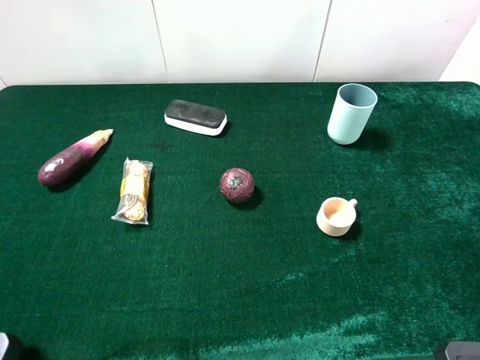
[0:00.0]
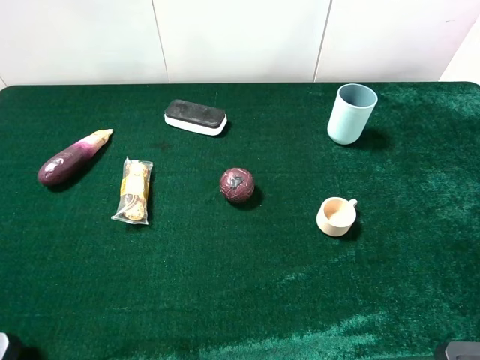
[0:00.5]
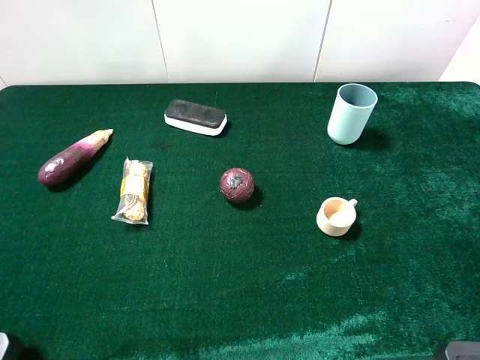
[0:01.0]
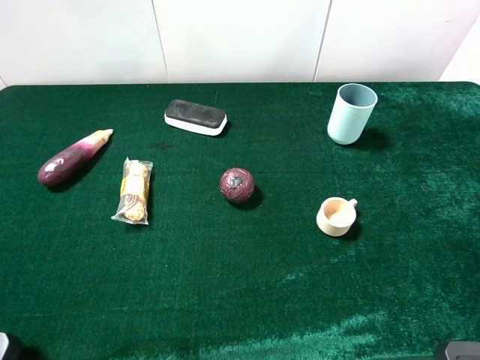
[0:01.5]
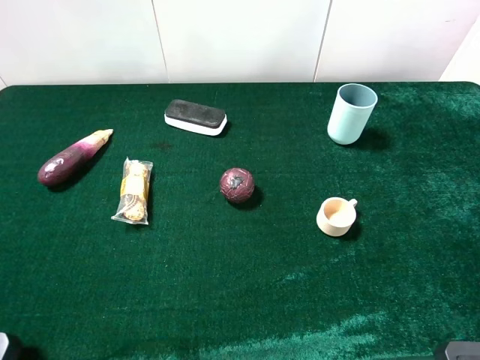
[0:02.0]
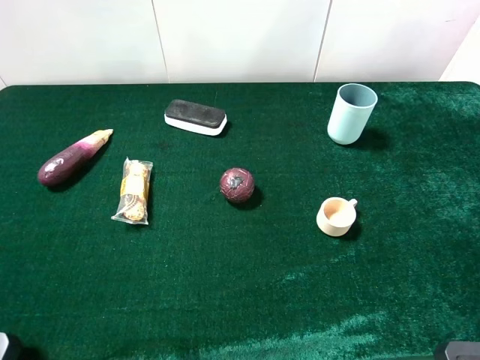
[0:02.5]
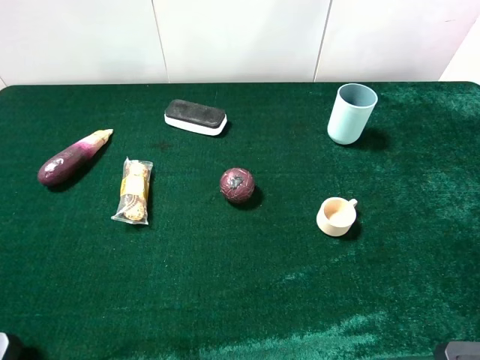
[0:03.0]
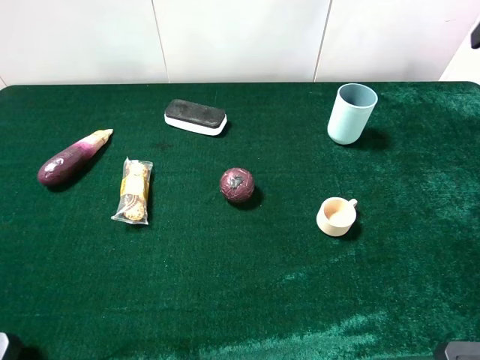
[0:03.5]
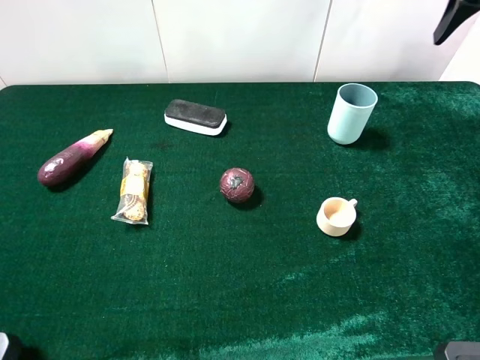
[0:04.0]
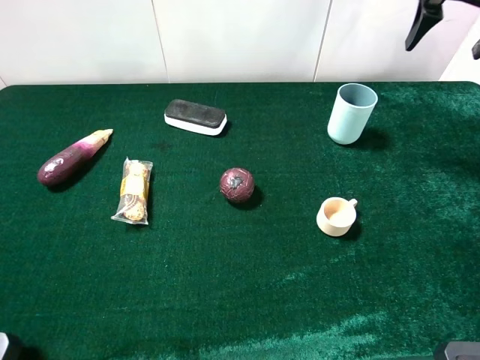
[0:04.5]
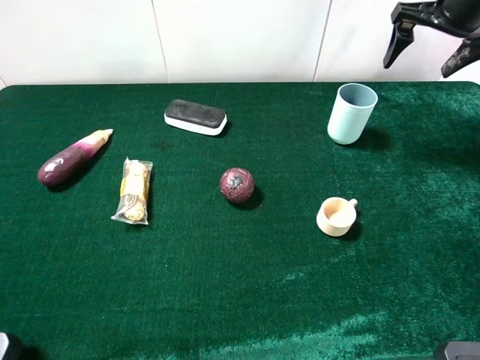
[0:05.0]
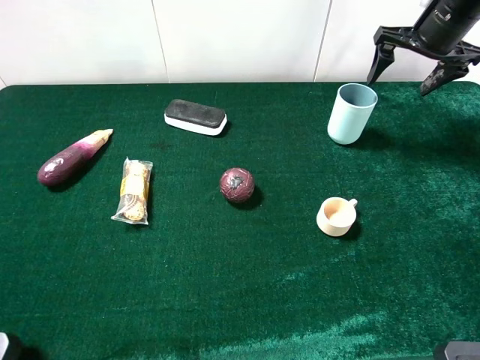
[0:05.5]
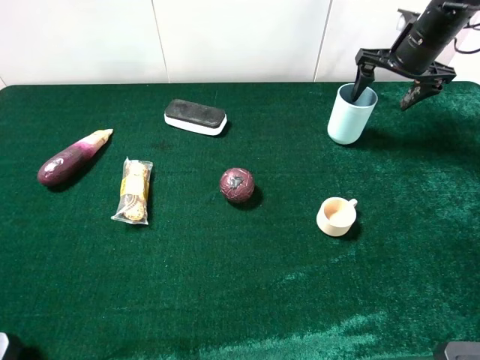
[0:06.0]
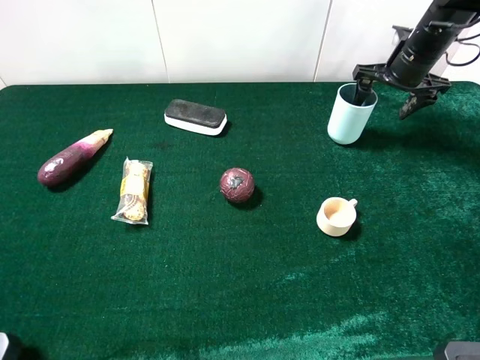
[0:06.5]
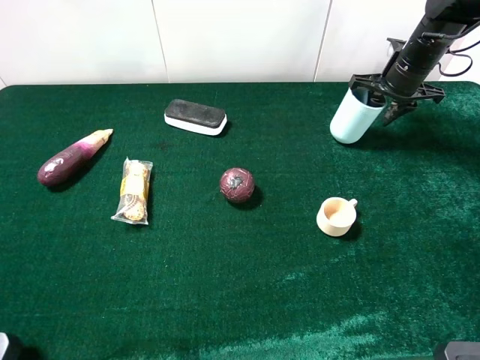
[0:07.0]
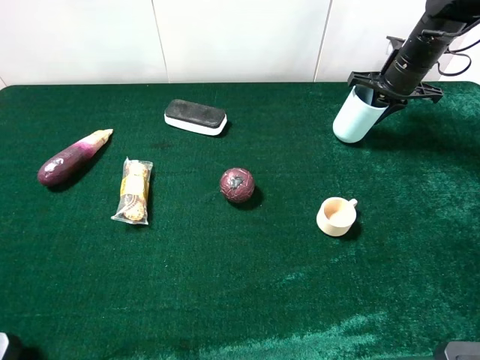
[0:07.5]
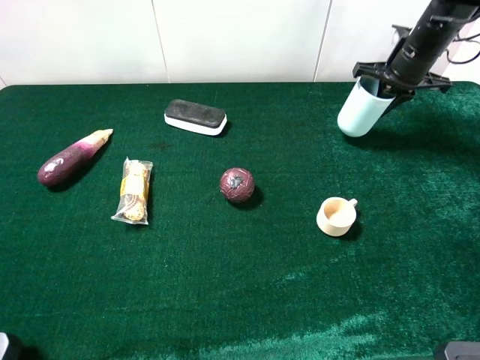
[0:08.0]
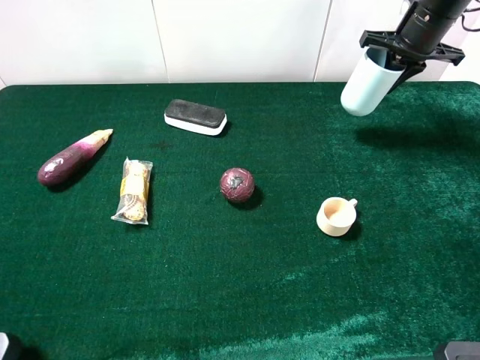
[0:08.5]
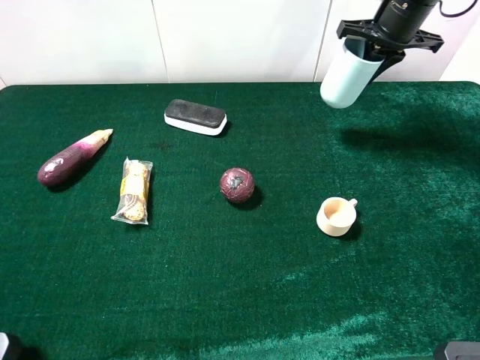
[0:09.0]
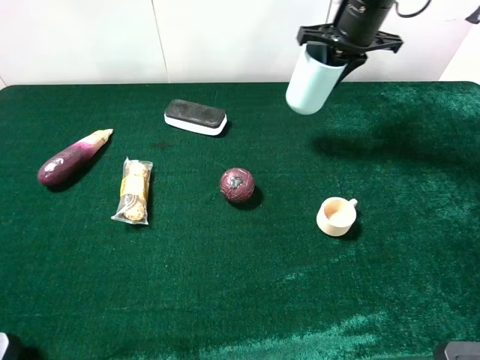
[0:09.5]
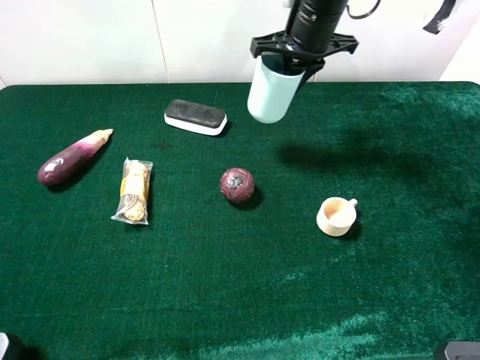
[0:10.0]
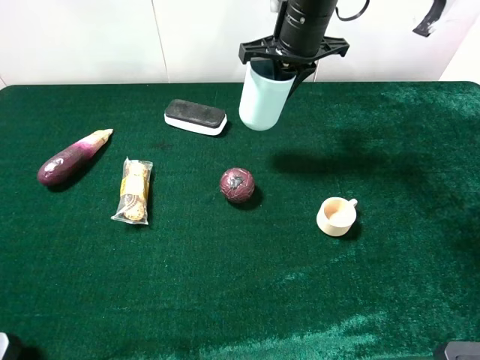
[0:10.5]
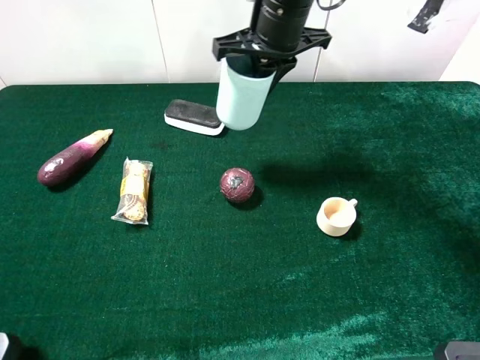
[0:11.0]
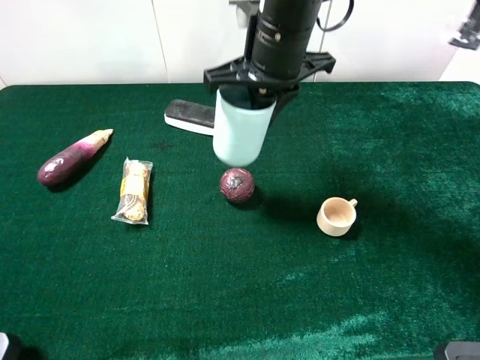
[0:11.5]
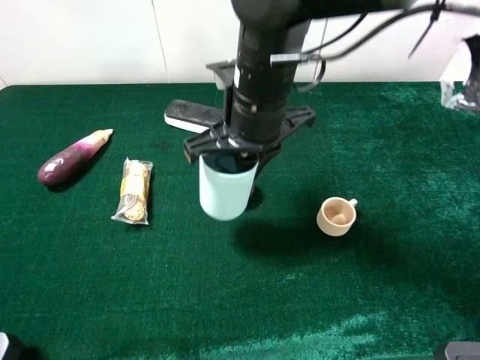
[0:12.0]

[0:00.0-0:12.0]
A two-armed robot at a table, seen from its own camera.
Task of the whole recording: the gripper move the object.
Step, 0.0 to 7.5 s: Grasp the cyan cup with the right gripper.
2.0 to 4.0 s: The right gripper travels forward by about 30 cm.
4.0 to 6.0 s: The right gripper moves downward and forward, some 20 cm.
6.0 to 8.0 s: The right gripper closes its fingers.
8.0 to 10.0 s: The right gripper heads to the left, covering approximately 20 cm.
10.0 to 12.0 s: The right gripper shifts about 15 cm backward and to the left.

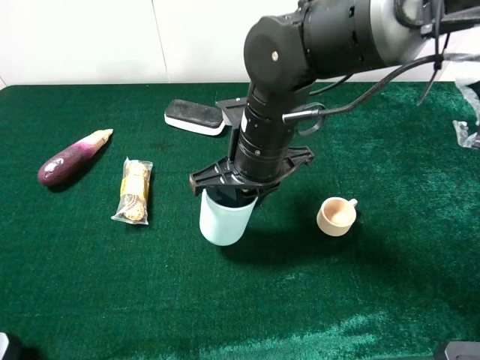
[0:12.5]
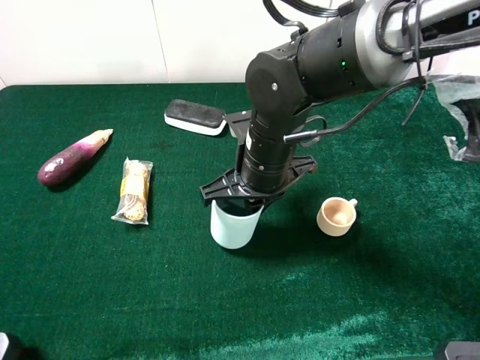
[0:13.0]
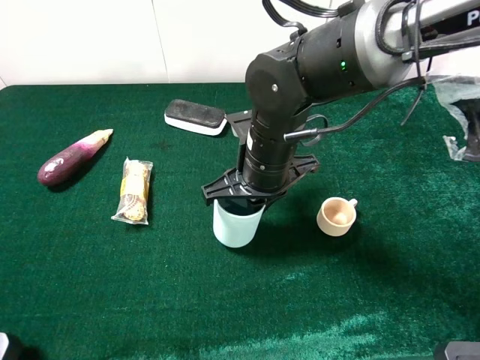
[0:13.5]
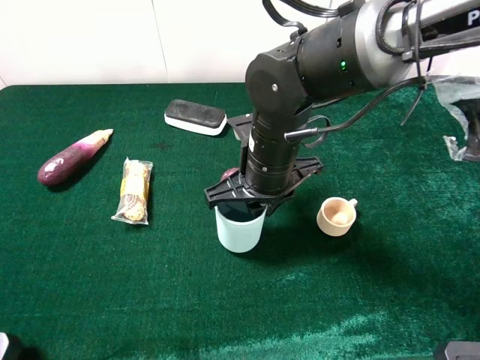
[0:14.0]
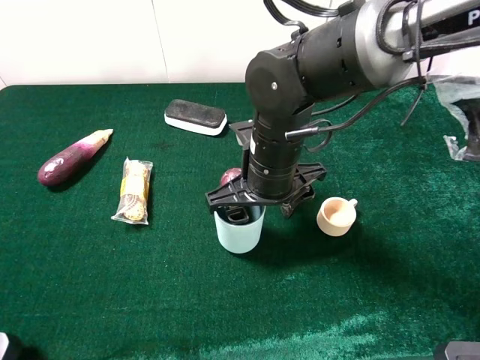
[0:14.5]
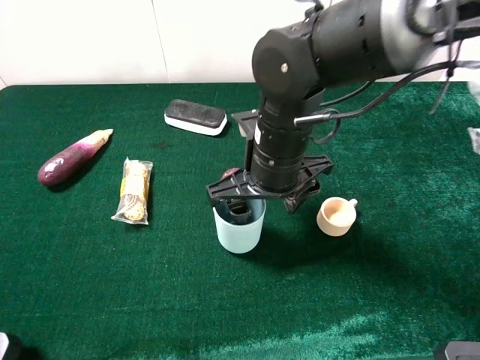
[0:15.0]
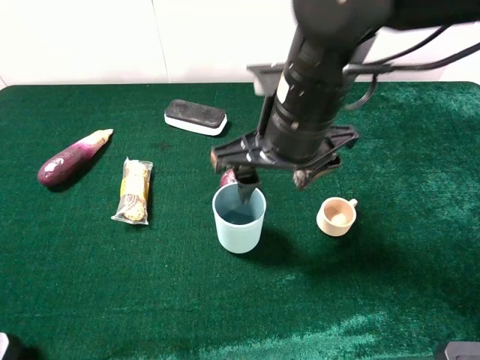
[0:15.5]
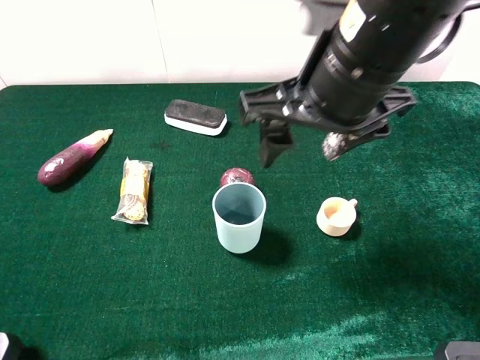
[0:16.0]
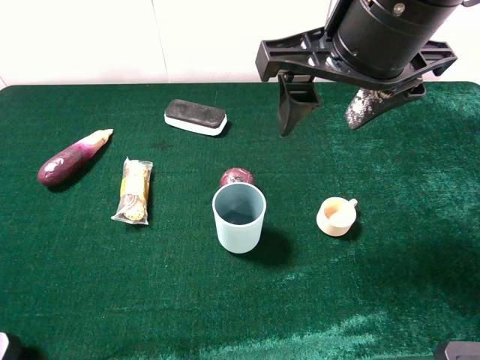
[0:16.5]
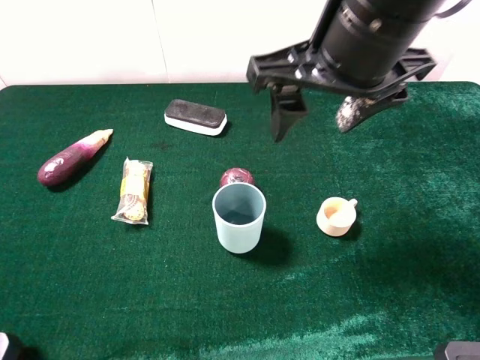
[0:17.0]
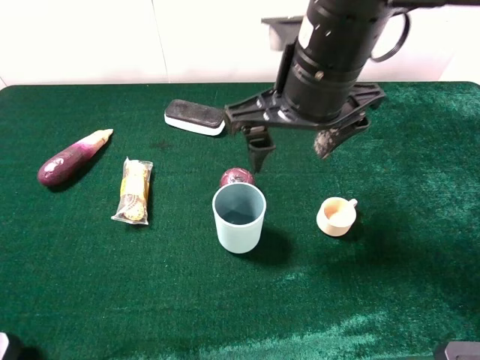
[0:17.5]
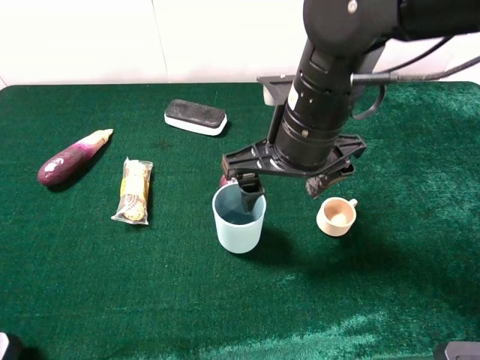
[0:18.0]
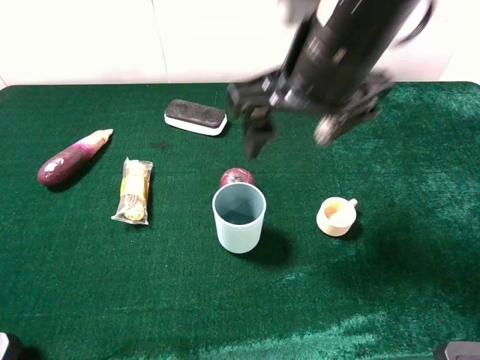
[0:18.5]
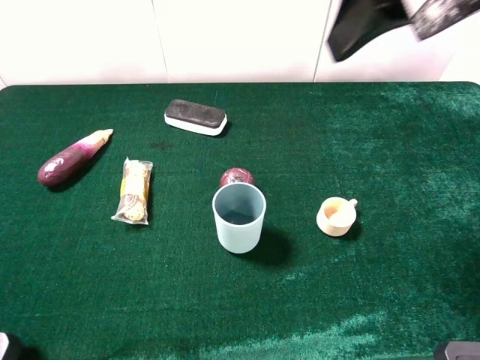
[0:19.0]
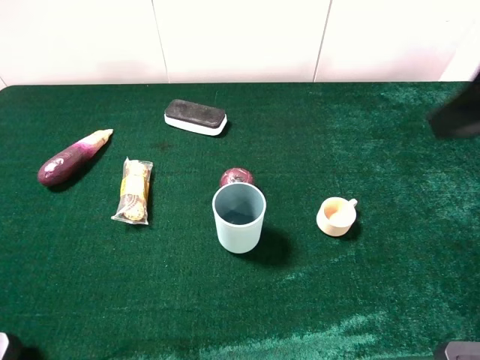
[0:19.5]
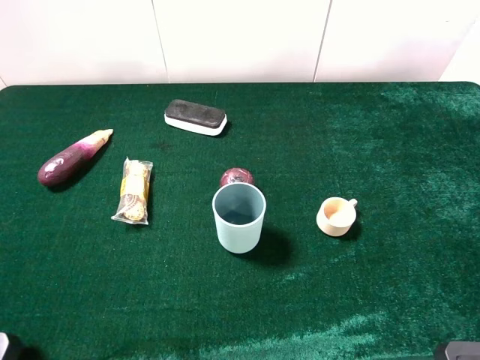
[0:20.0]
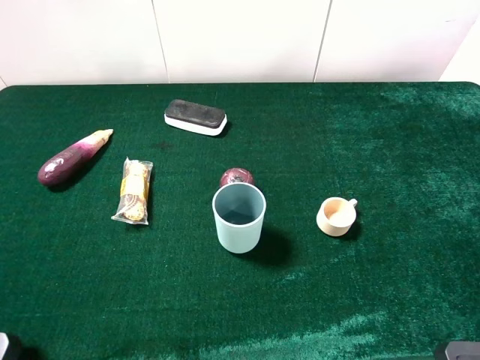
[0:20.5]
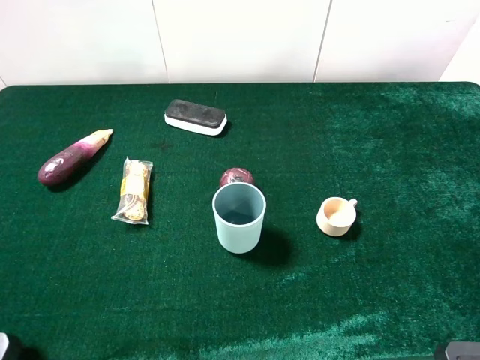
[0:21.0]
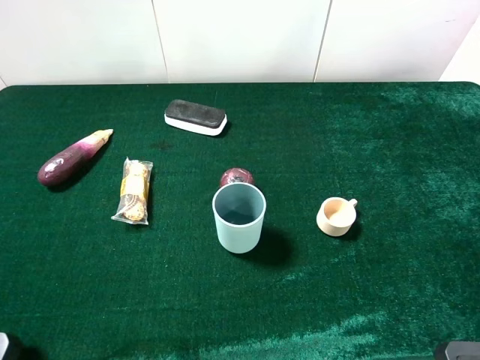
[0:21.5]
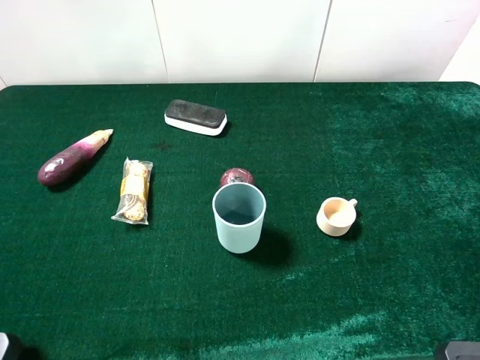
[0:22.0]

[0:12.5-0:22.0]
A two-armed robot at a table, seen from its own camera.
Task of the whole recording: the gripper move the object.
12.5 to 14.5 s: The right gripper opens up.
14.5 to 16.5 s: The right gripper goes some 20 cm upward.
16.5 to 18.0 s: The right gripper shifts about 10 cm downward.
18.0 to 20.0 s: The right gripper moves to the right, backward and upward, approximately 30 cm.

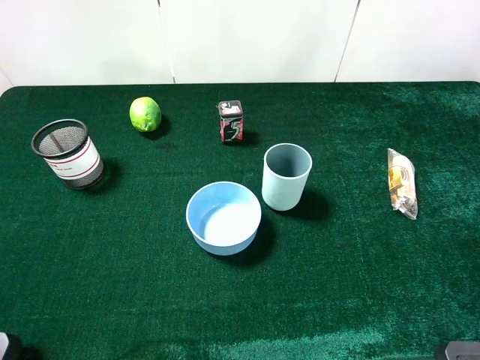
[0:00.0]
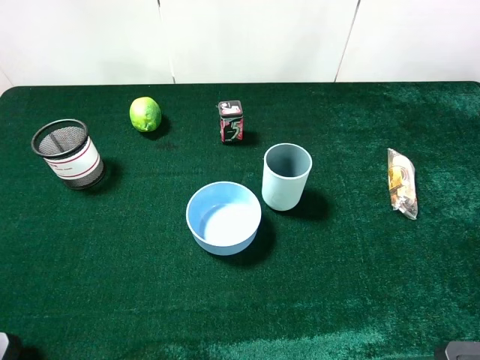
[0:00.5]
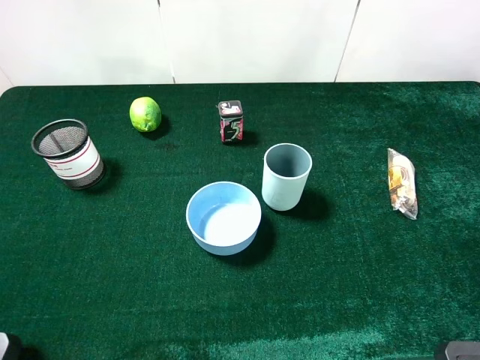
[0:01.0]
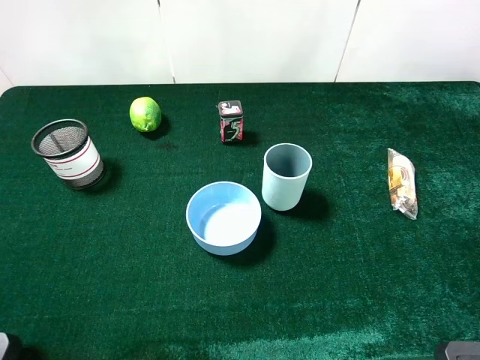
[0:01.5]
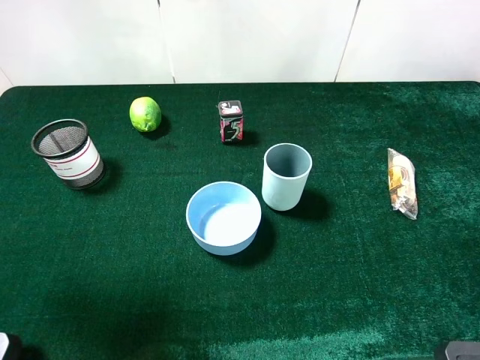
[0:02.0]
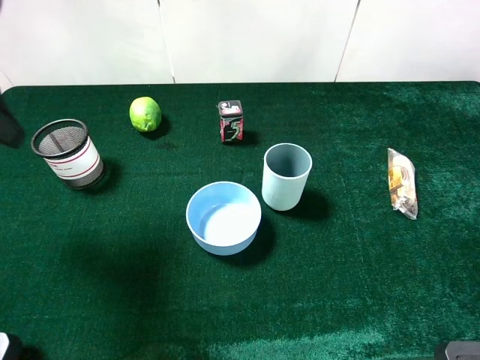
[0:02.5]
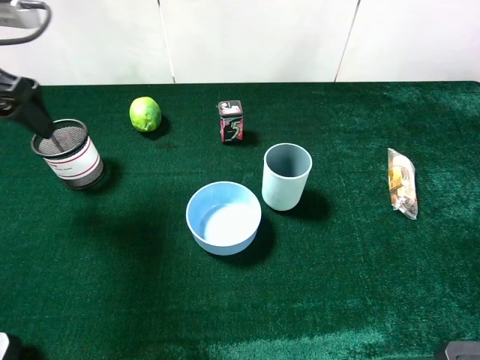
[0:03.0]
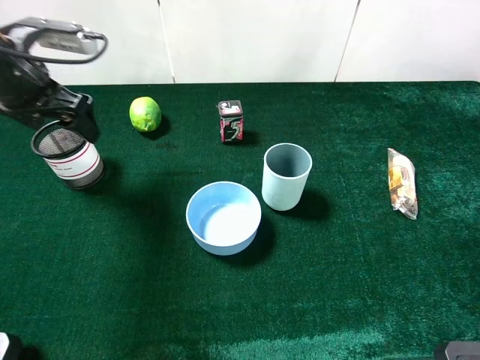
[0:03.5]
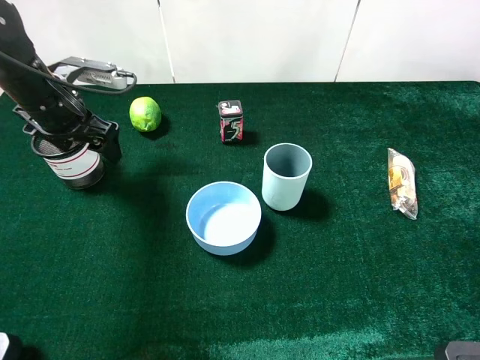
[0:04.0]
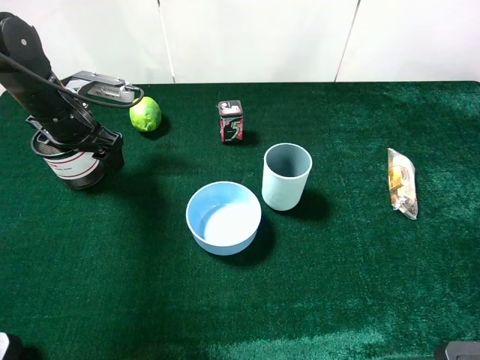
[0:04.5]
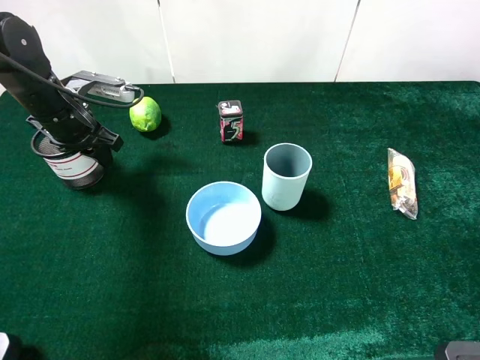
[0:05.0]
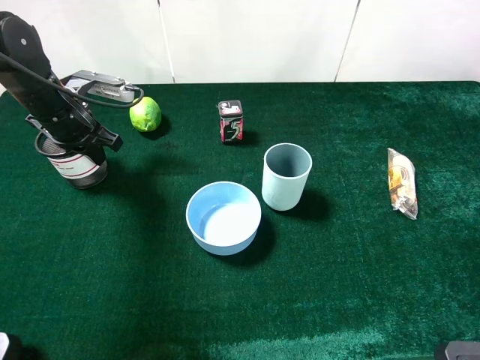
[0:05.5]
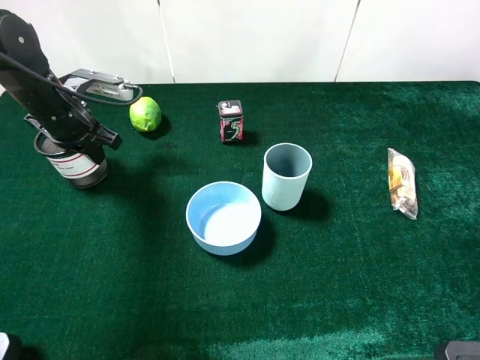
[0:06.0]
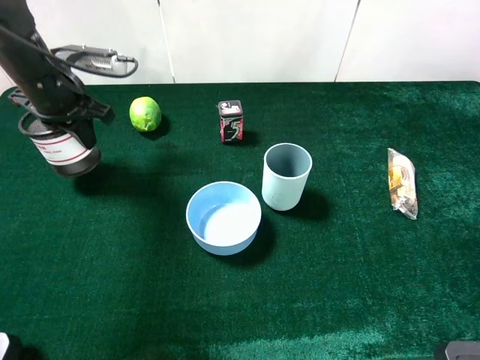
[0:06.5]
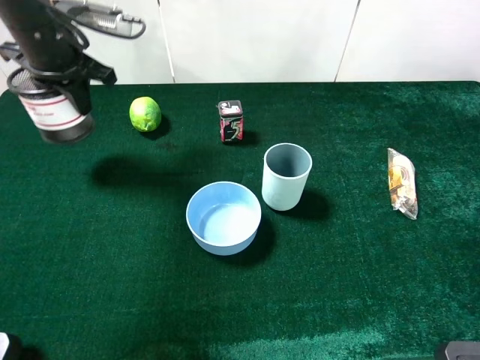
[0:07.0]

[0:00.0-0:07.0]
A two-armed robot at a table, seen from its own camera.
Task of the whole recording: the gripper move the object.
Step, 0.0 to 6.0 s: Grasp the pen container with the left gripper.
0.0 to 2.0 s: The left gripper is displaced forward by roughly 15 cm.
2.0 to 3.5 s: The left gripper is displaced forward and downward by about 20 cm.
3.5 to 5.0 s: The left gripper is displaced downward by some 10 cm, and closes.
5.0 to 7.0 s: The left gripper travels upward by some 10 cm.
